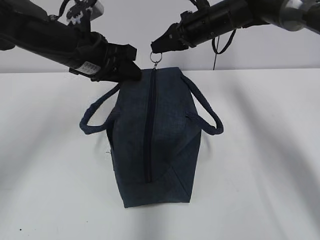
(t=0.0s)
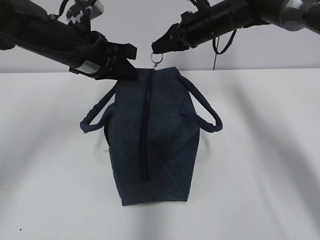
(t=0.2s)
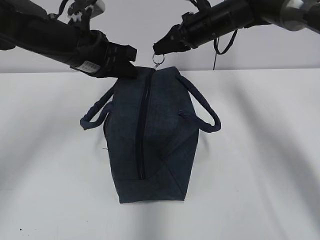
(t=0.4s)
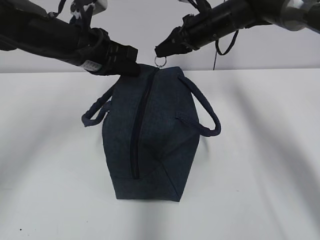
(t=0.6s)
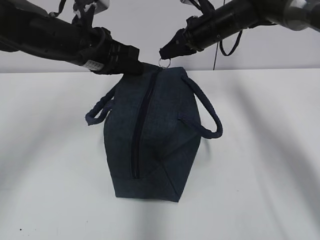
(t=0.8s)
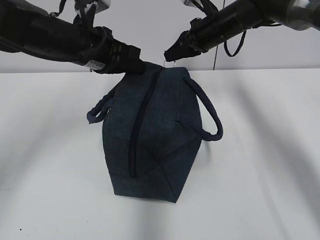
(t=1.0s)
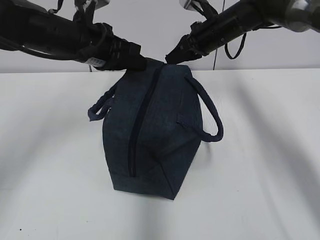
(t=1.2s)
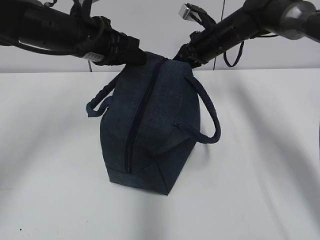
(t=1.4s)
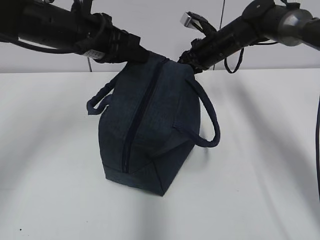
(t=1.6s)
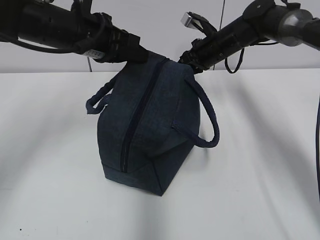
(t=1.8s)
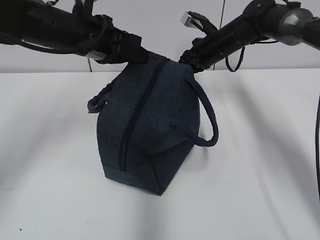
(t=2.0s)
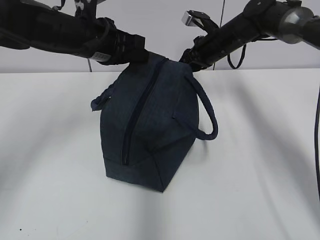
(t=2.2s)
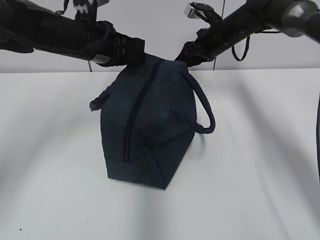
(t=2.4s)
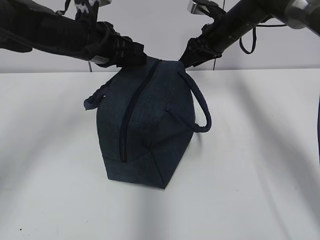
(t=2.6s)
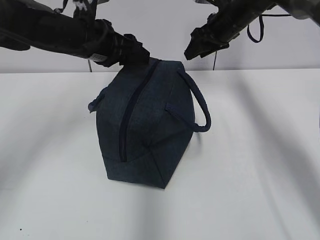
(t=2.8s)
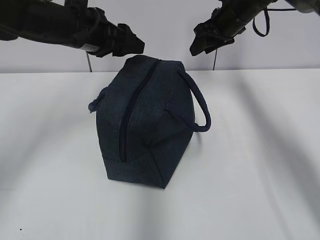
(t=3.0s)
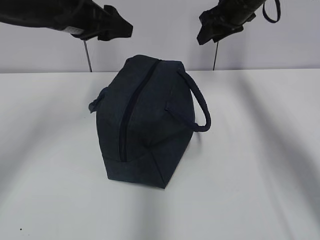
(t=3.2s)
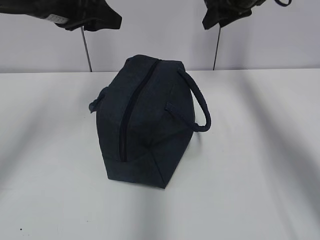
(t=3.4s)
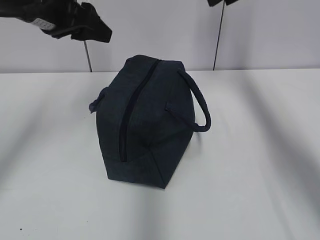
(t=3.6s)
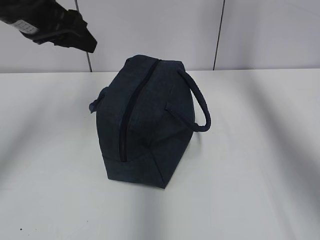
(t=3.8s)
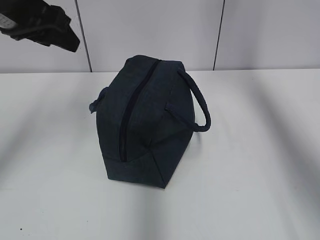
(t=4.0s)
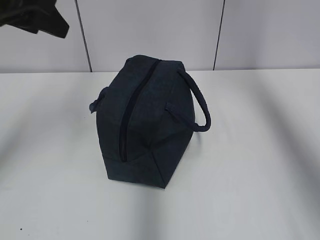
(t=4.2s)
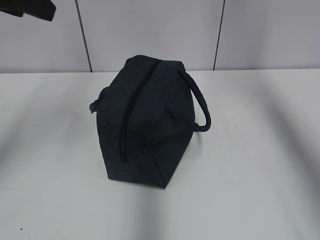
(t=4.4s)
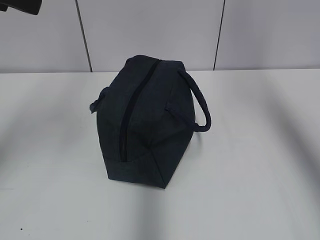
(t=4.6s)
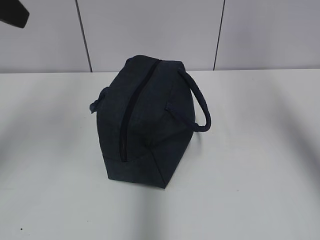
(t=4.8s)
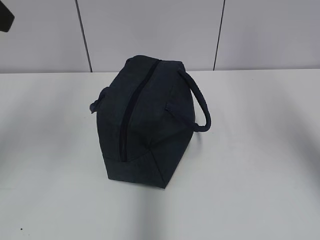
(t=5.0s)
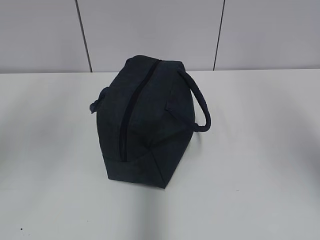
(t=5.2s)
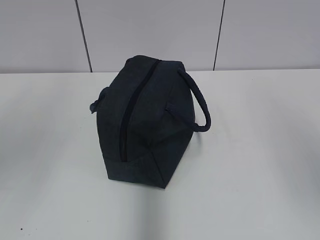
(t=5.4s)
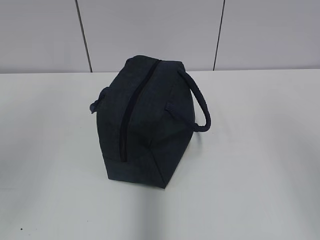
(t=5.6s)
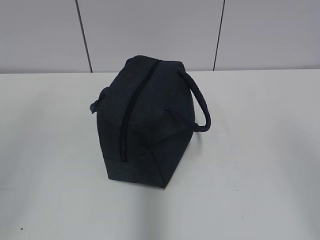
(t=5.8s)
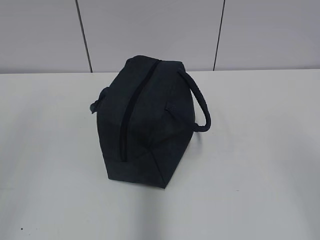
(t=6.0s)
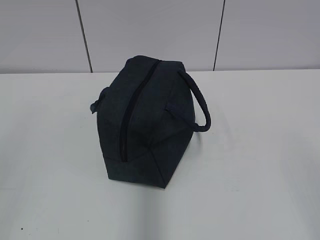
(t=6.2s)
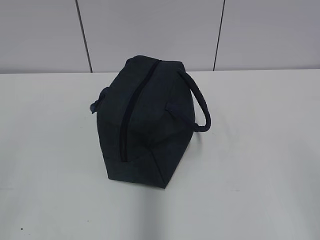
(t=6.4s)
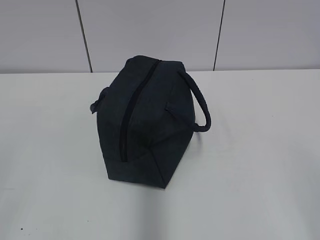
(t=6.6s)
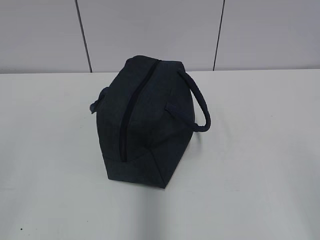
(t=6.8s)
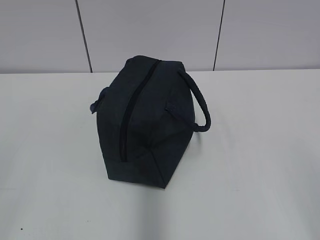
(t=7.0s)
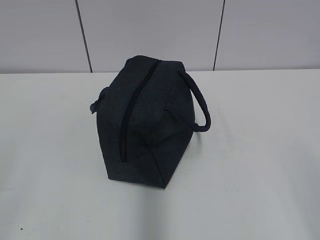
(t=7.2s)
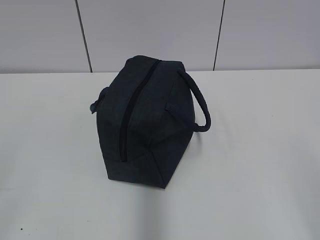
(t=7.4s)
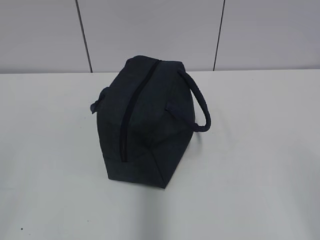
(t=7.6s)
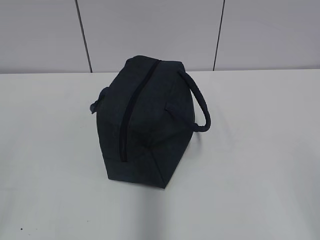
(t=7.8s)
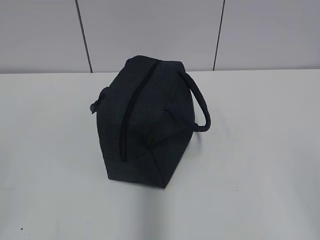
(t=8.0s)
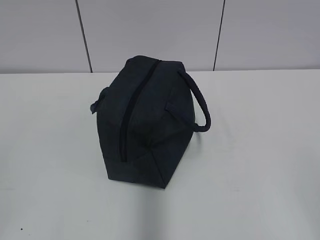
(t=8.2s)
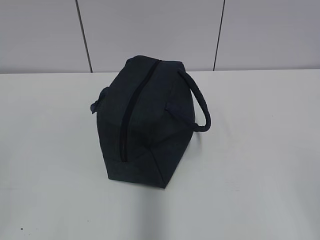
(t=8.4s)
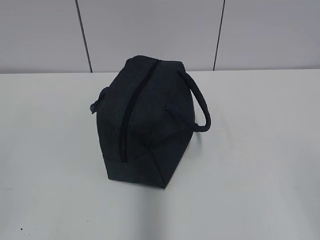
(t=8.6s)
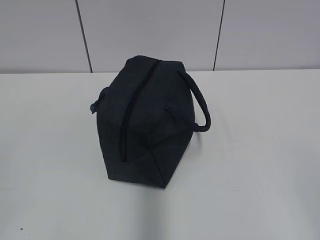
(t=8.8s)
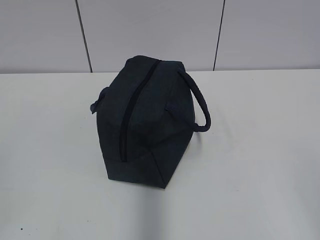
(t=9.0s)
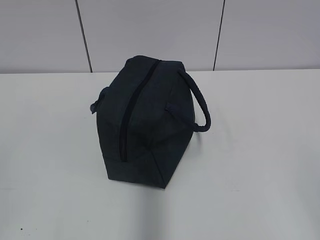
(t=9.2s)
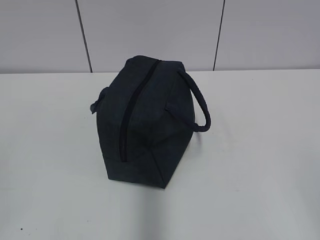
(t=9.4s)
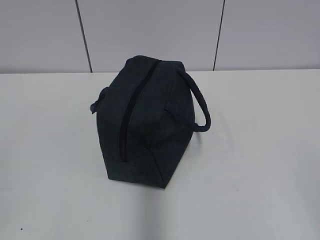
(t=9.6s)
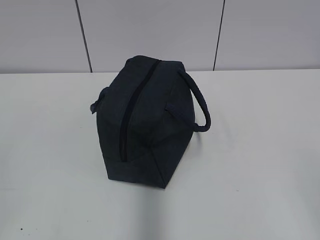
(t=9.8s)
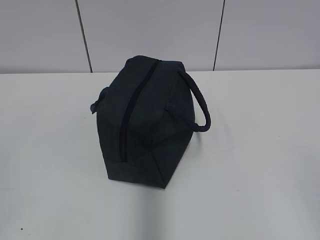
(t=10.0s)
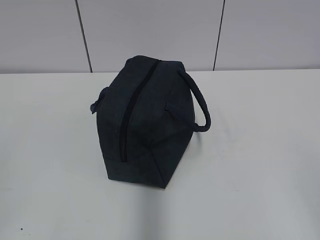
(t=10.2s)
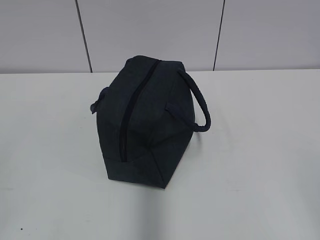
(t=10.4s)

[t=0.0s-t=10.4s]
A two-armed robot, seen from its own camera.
Step, t=0.0s to t=2.2s: Pull the zipper with your right hand.
t=0.0s to t=1.4s: The left gripper closes up.
t=1.4s to t=3.0s: The right gripper moves upward, roughly 5 cm, and opens. The left gripper opens up.
t=3.0s to t=4.4s: The left gripper shifts roughly 20 cm upward, backward and to the left. Meanwhile the right gripper moves upward and backward, about 30 cm.
t=4.4s to t=6.0s: The right gripper moves backward and downward, approximately 40 cm. Meanwhile the left gripper travels backward by some 25 cm.
t=9.0s to t=10.4s: Both grippers stay about where they are.

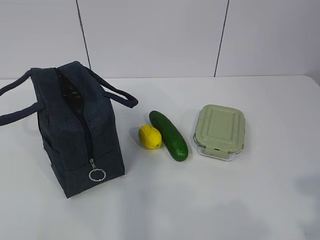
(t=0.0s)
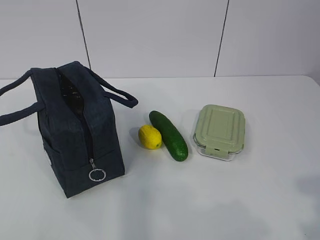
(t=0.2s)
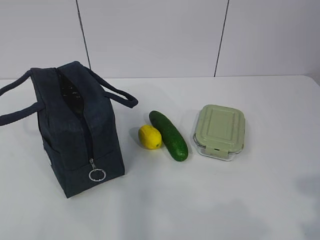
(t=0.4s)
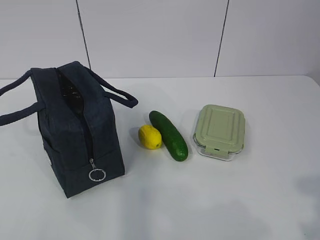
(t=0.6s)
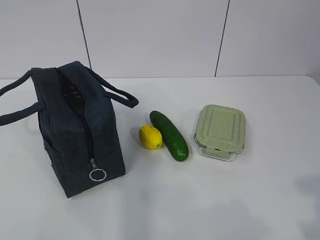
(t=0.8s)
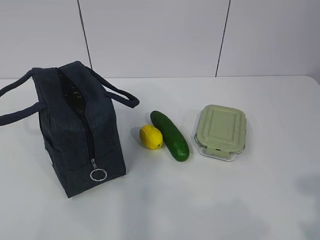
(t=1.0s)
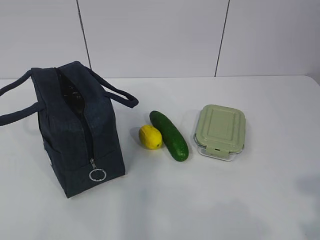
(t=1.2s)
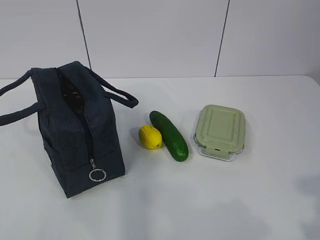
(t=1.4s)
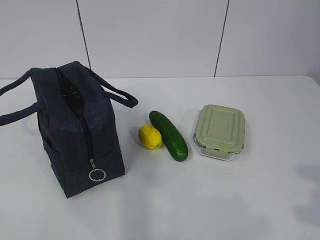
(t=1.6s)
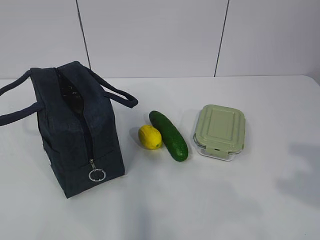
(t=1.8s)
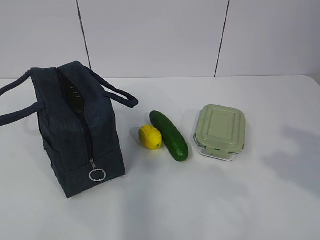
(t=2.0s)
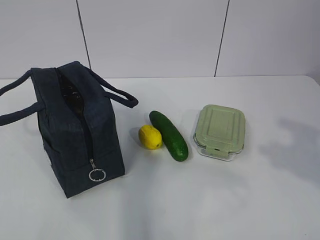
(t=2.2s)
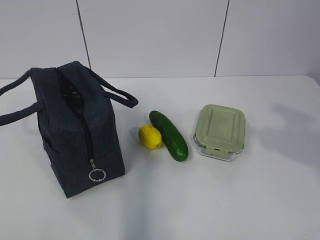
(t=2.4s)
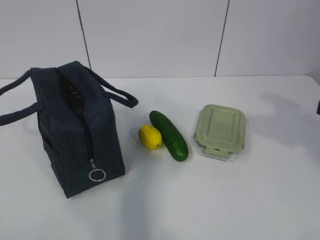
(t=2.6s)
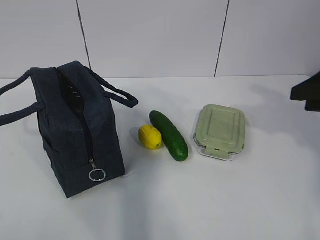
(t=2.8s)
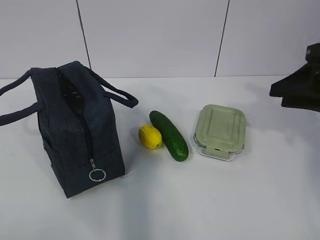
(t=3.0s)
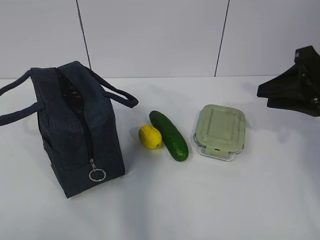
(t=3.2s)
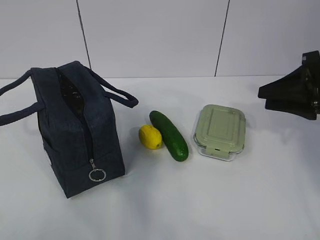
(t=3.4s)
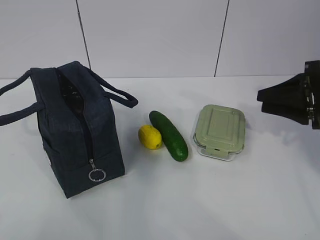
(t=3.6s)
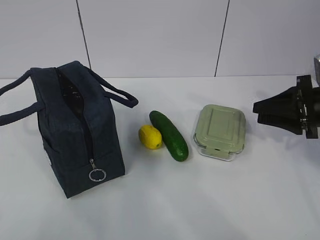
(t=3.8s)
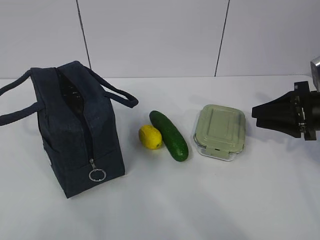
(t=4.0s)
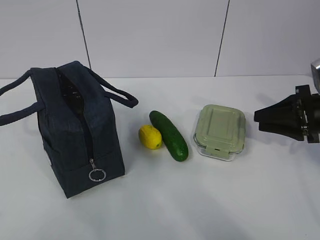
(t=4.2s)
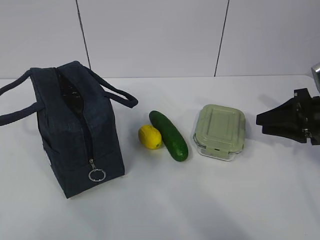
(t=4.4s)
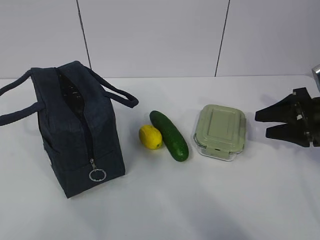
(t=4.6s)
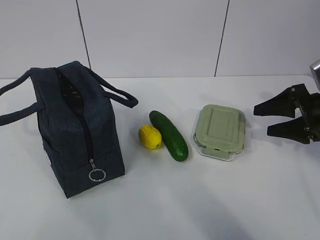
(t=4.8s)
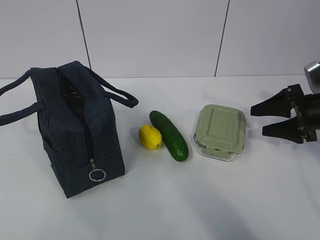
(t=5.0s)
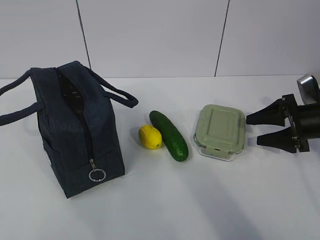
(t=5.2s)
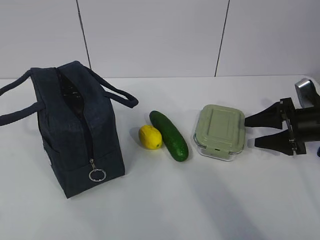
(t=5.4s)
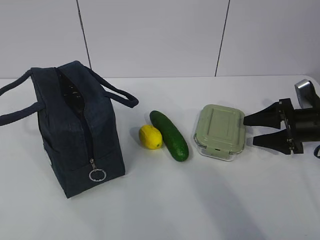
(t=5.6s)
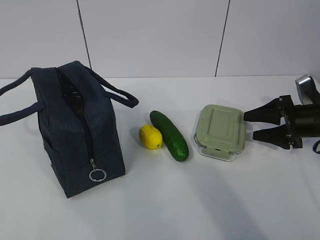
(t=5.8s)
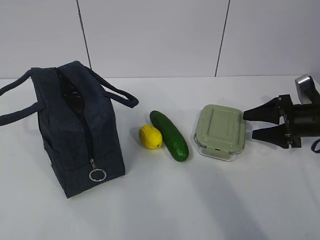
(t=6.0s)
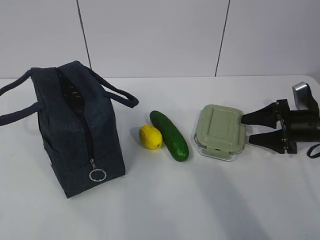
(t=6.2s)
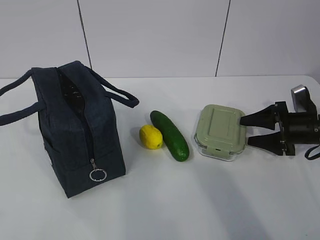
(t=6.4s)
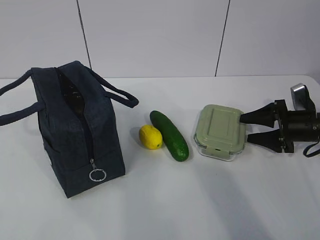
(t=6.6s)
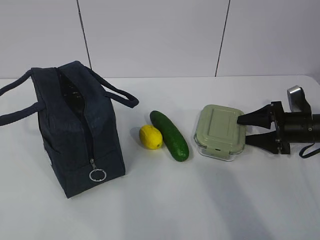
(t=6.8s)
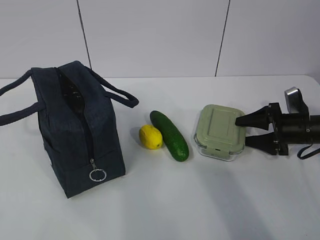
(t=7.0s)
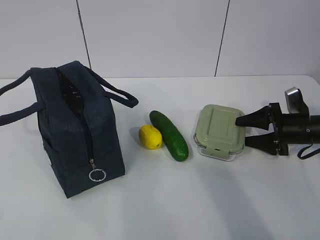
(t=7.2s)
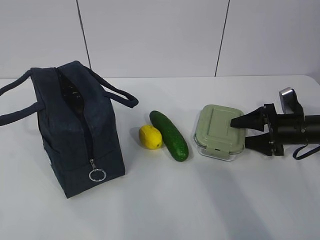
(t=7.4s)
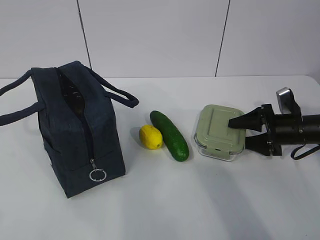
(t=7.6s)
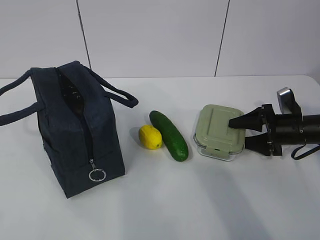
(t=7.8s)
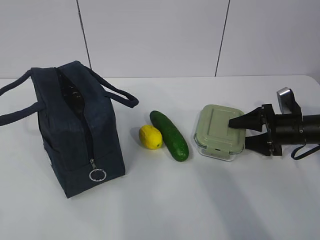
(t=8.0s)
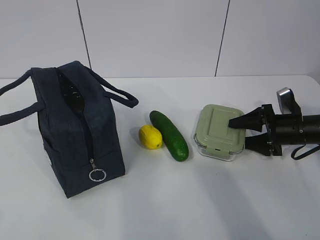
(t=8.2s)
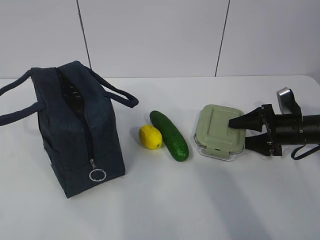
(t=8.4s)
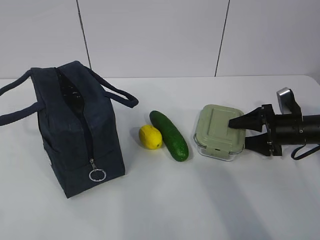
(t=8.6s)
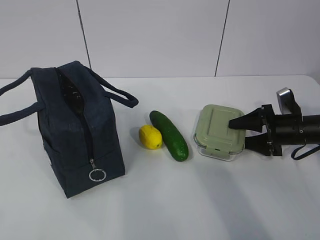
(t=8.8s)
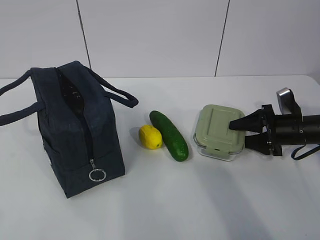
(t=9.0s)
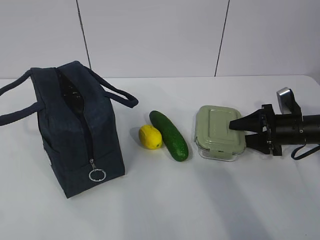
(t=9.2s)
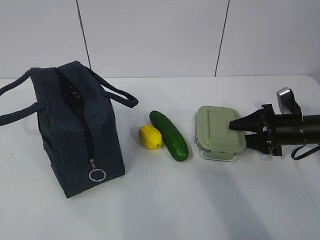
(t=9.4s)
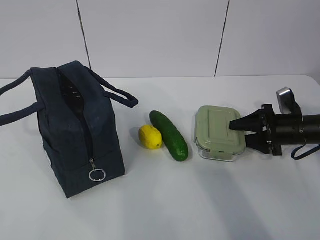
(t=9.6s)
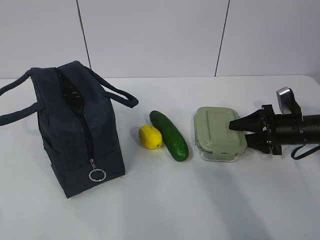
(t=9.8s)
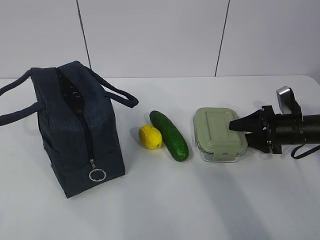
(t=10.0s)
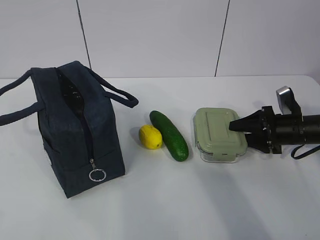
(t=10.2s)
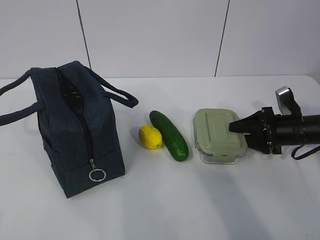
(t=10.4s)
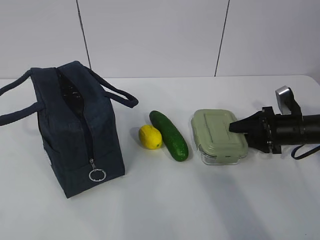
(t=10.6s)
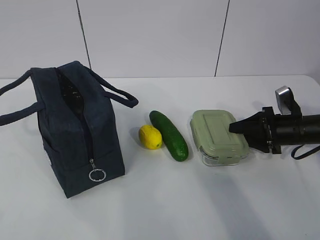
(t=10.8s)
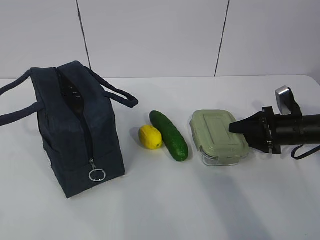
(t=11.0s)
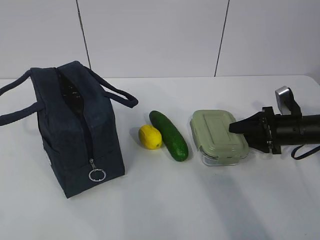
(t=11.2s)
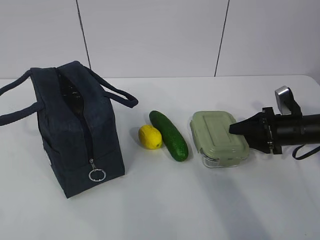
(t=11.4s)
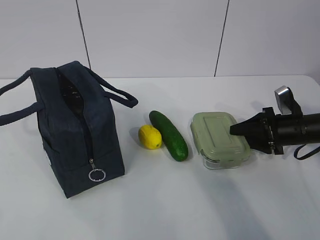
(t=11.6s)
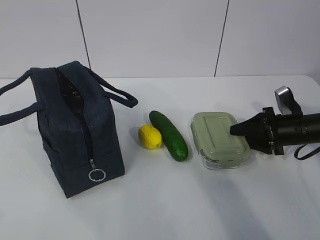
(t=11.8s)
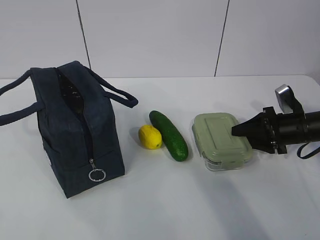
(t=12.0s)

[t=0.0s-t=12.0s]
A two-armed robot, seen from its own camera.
Step, t=0.0s to t=10.2s: Grab the lunch box with your right hand.
t=1.6s to t=3.0s: The right gripper goes approximately 25 cm forward.
t=3.0s to t=4.4s: The right gripper moves downward and forward, about 15 cm.
t=4.4s to t=6.0s: The right gripper goes about 5 cm downward, and opens its fingers.
t=6.0s to t=7.6s: The grippers make only small movements.
t=7.6s to t=9.0s: Neither gripper changes place.
t=9.0s to t=10.4s: The grippers move only a little.
t=10.4s to t=12.0s: Both grippers stay put.
